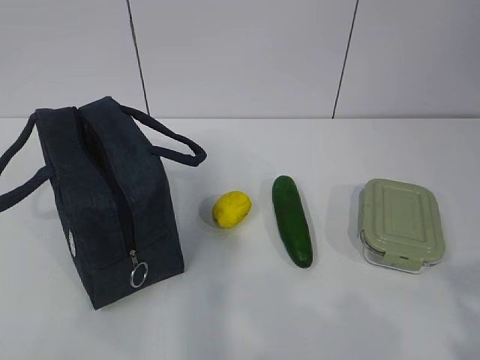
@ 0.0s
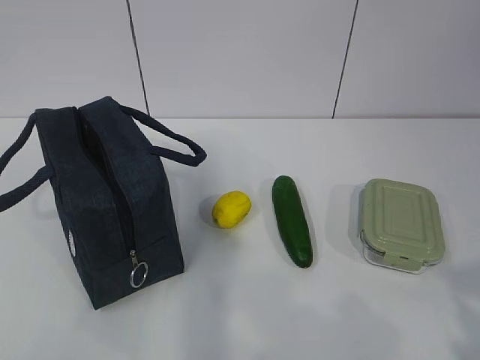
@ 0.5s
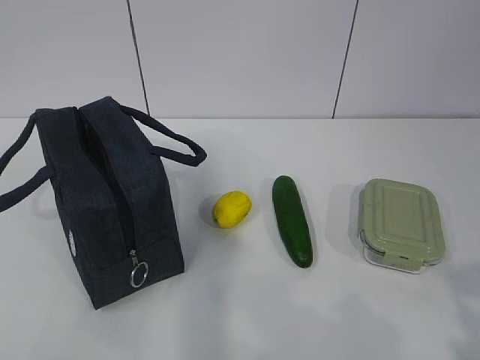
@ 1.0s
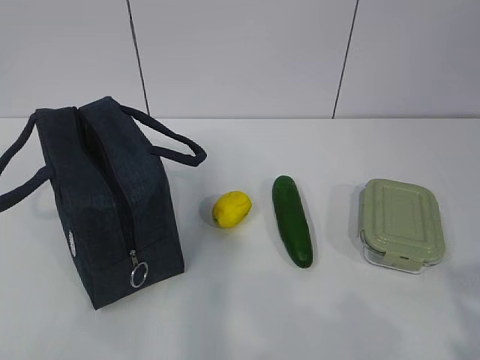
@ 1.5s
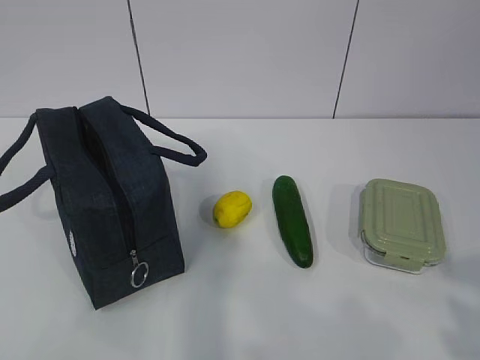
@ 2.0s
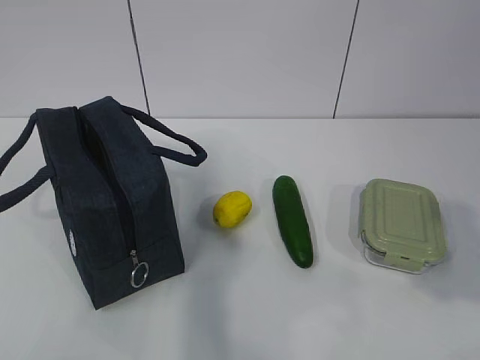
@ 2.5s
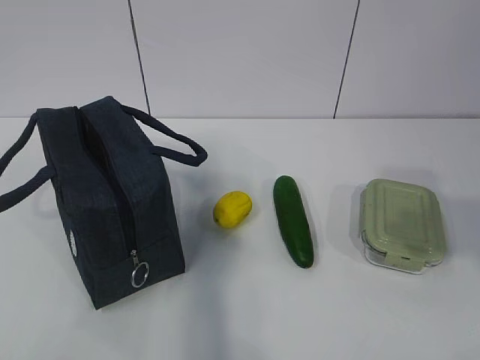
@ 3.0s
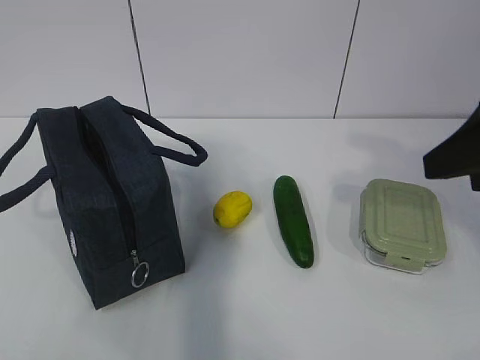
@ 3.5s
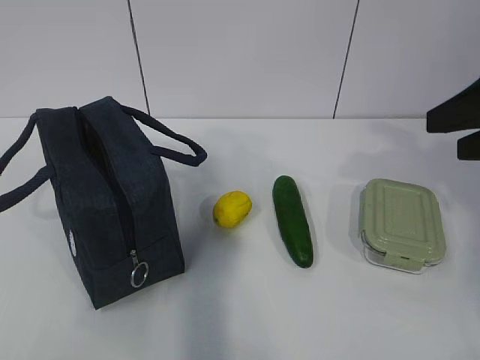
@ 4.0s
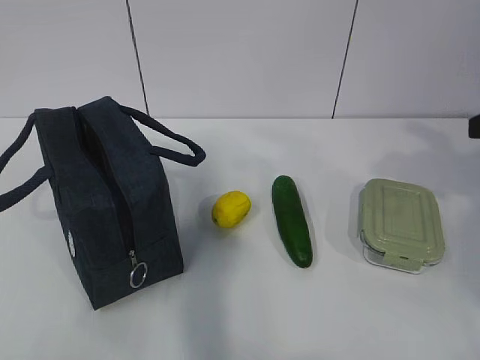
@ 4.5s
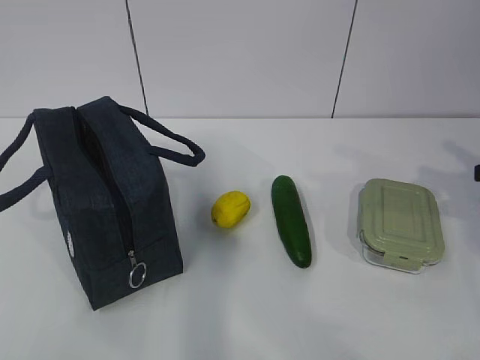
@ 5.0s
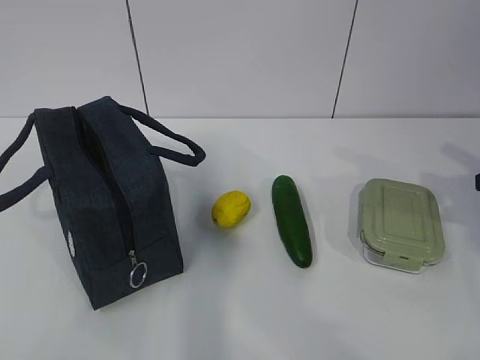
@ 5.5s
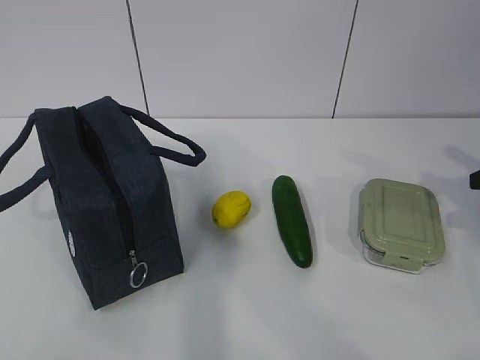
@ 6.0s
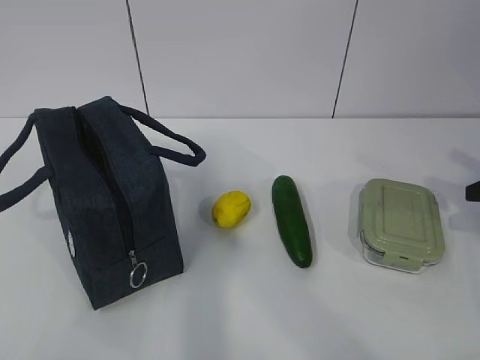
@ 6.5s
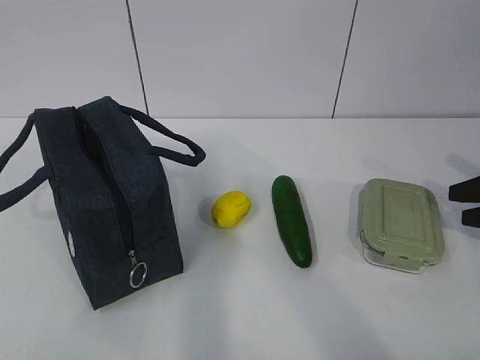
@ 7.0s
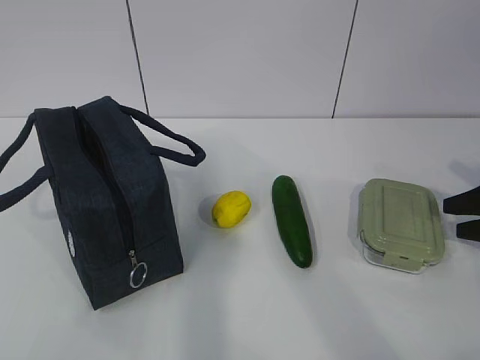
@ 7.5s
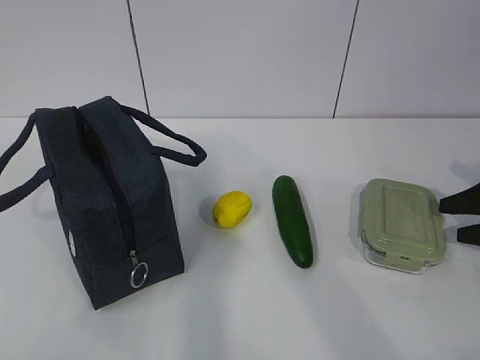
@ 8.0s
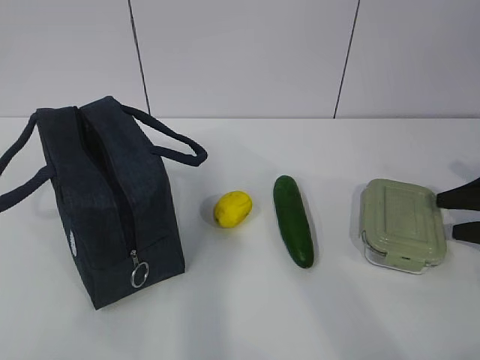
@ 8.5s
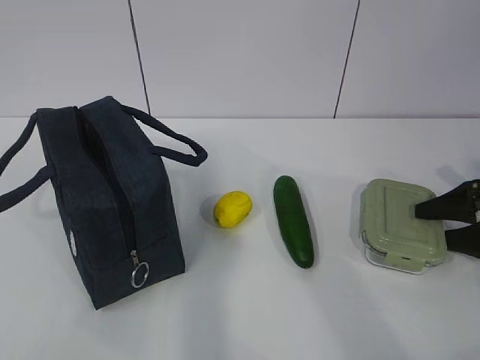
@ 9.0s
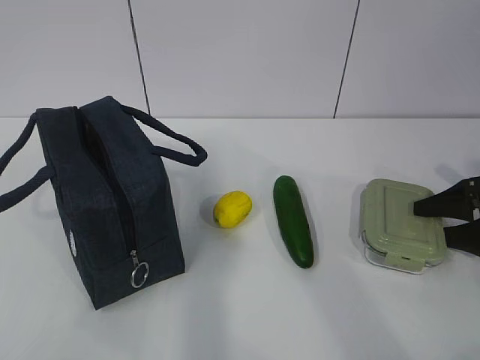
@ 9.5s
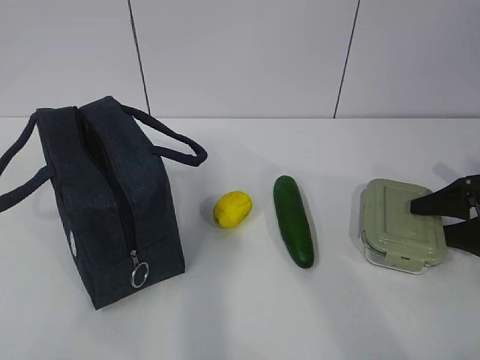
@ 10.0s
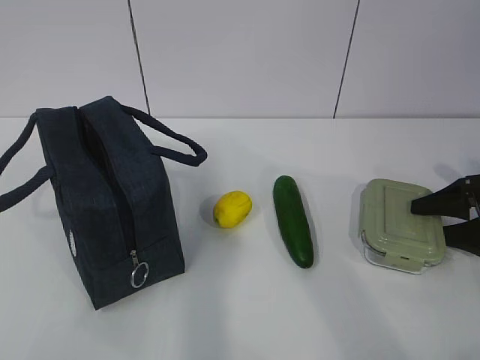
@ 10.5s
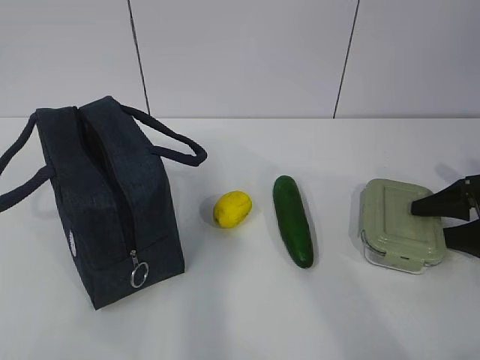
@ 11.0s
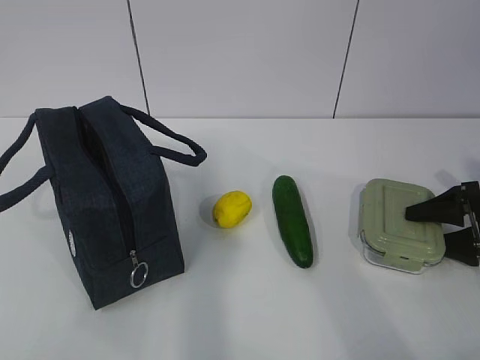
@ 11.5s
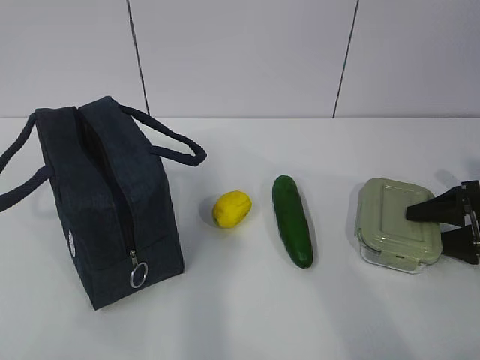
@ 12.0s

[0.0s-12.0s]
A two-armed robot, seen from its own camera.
2.0s to 4.0s: The right gripper moves forward, some 25 cm.
4.0s to 6.0s: The right gripper goes approximately 15 cm to the right and downward.
6.0s to 8.0s: The right gripper moves downward, approximately 10 cm.
8.0s to 12.0s: The grippers move only a little.

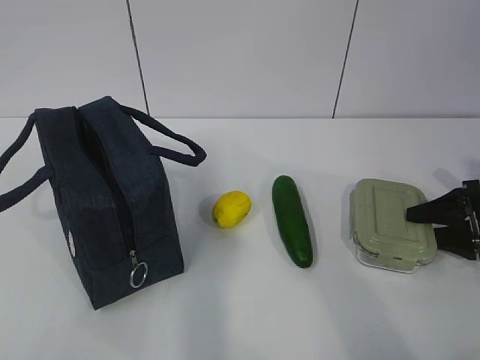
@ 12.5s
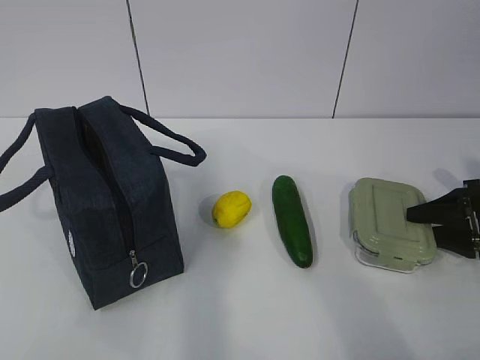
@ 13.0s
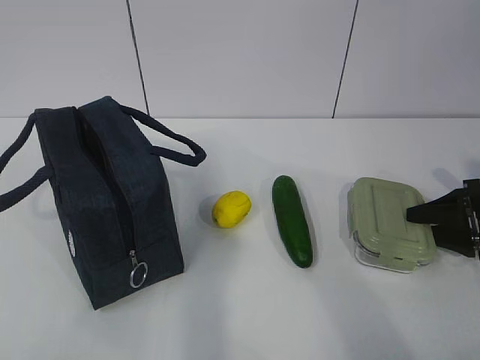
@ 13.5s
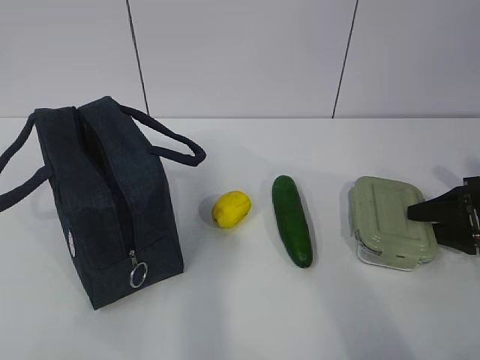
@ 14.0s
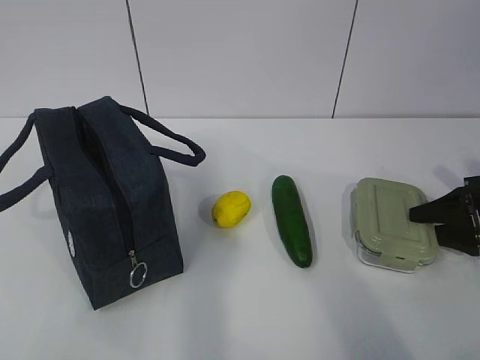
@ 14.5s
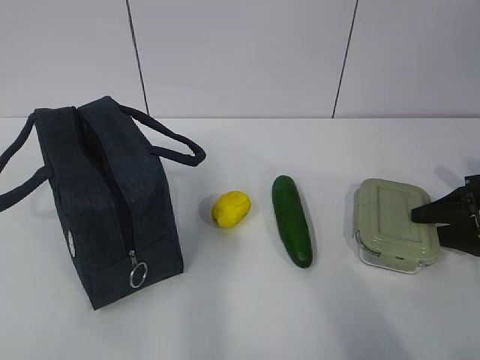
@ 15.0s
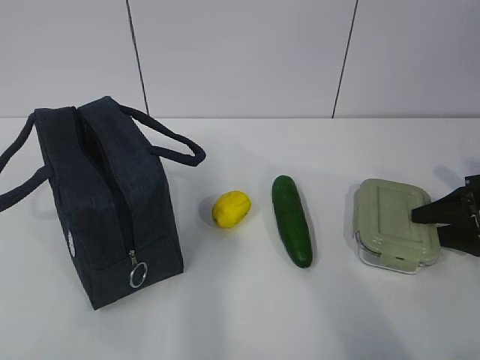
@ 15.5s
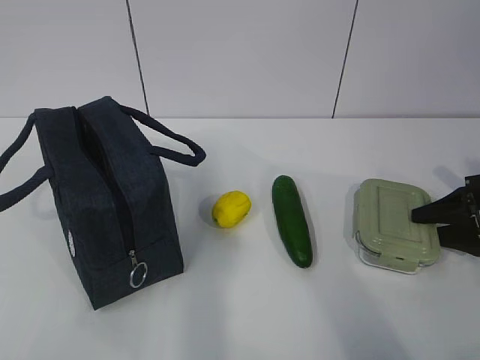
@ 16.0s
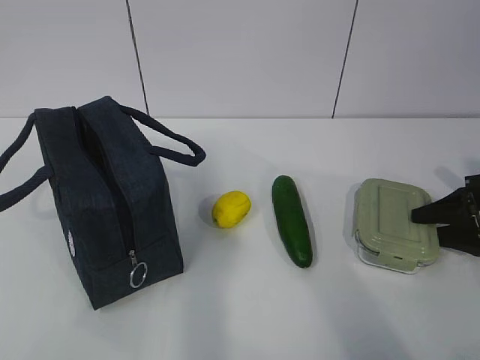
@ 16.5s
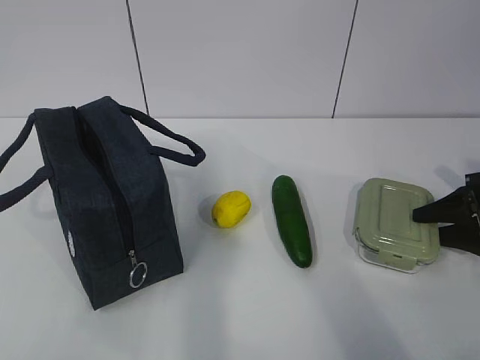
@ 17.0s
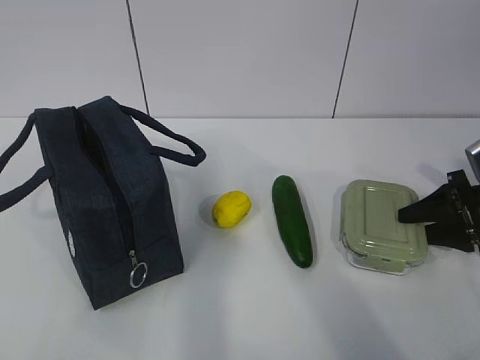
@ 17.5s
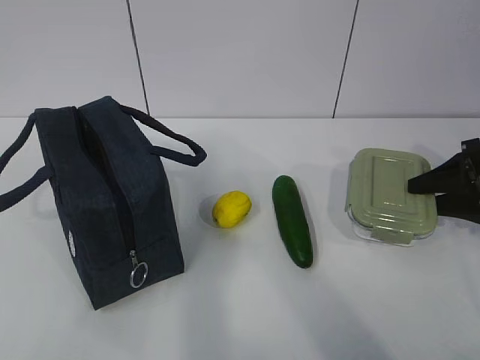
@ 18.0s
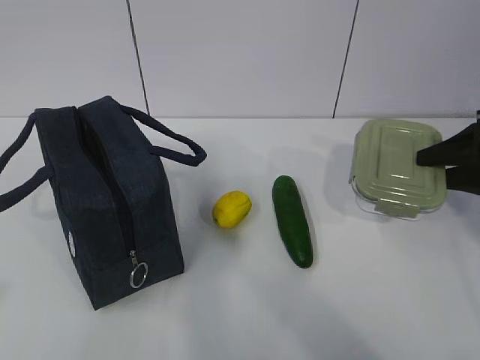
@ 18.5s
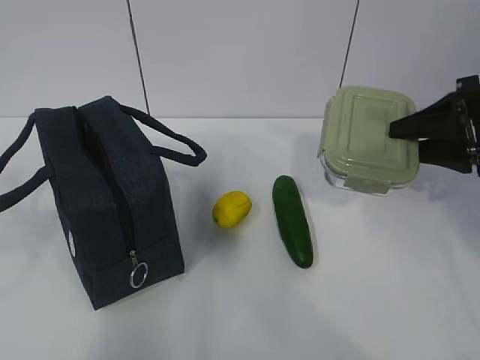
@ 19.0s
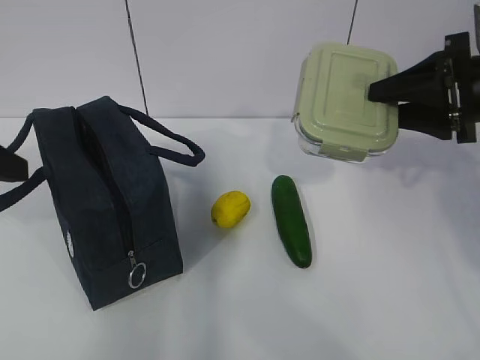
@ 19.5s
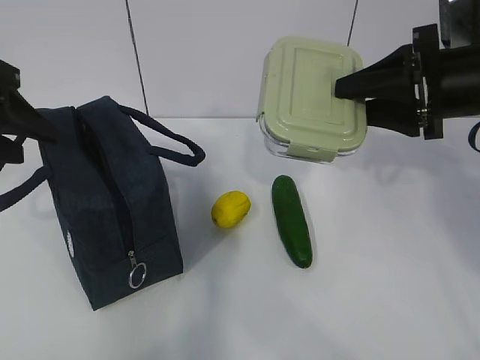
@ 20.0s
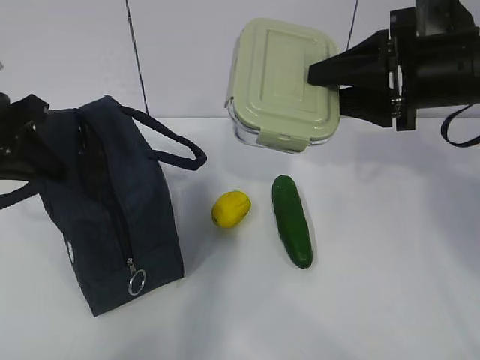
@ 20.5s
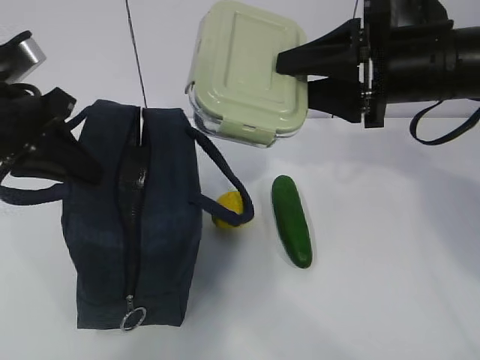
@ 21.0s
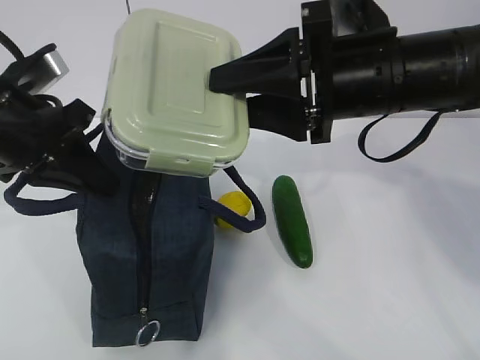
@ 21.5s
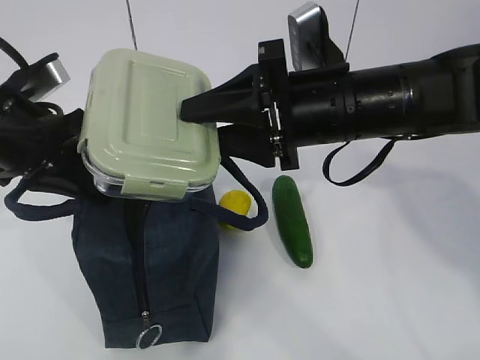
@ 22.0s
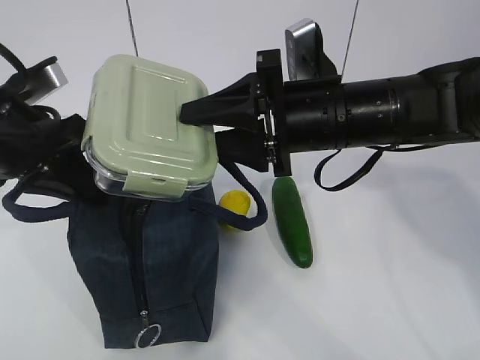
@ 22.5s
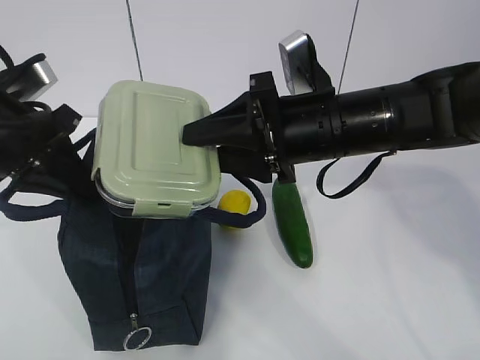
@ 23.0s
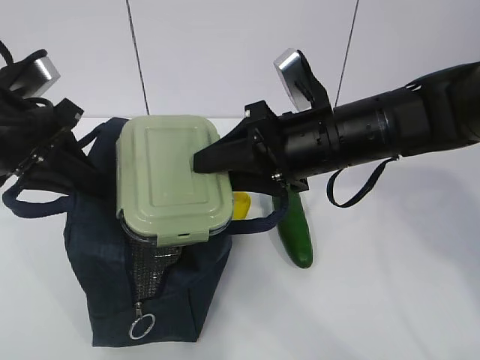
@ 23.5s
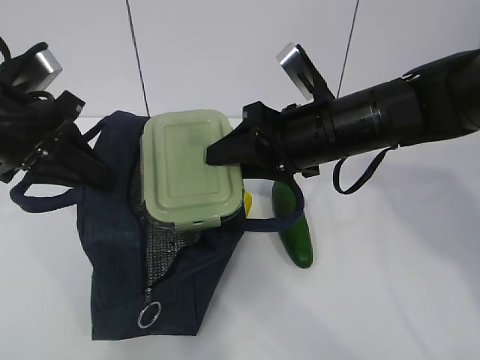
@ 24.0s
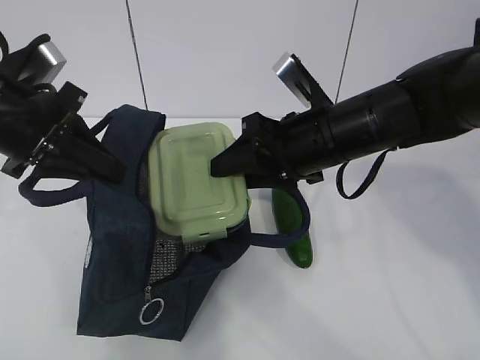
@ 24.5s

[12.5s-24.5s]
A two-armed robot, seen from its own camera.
Step, 18.5s to 23.5s: Place it into the bag with your right hand.
12.5s to 16.5s: The two grippers keep their place.
16.5s to 18.5s: The right gripper goes some 10 cm upward.
18.5s to 20.5s: The left gripper heads forward, covering about 25 cm, and closes; the right gripper is displaced to the left and upward by approximately 15 cm.
20.5s to 22.5s: The right gripper goes some 10 cm to the left.

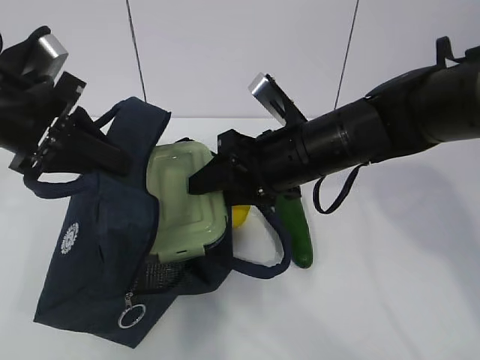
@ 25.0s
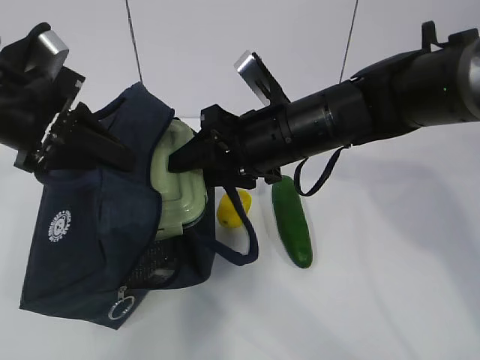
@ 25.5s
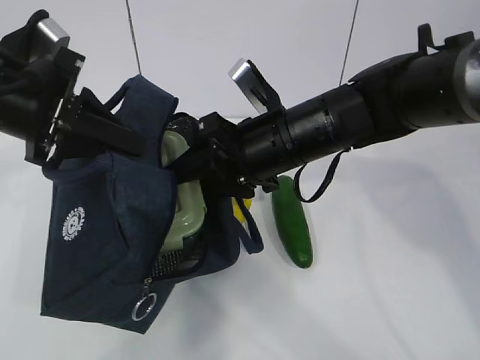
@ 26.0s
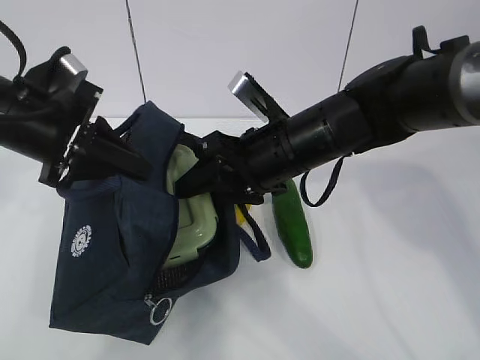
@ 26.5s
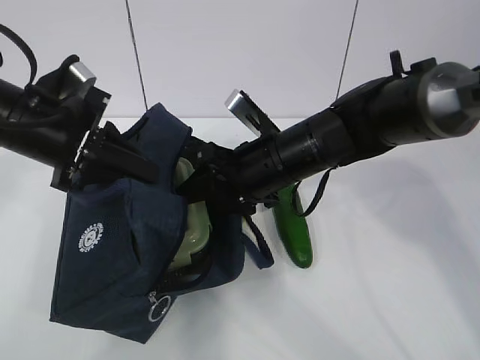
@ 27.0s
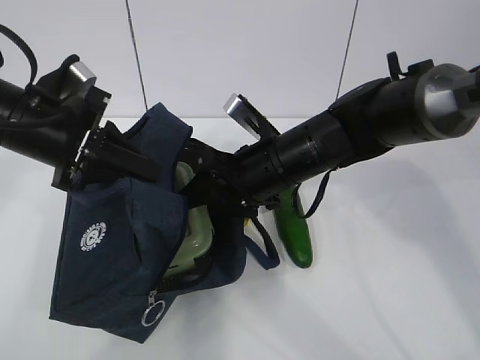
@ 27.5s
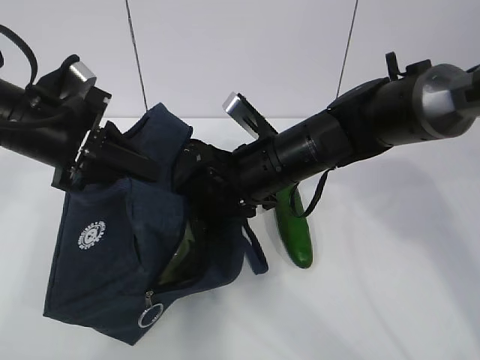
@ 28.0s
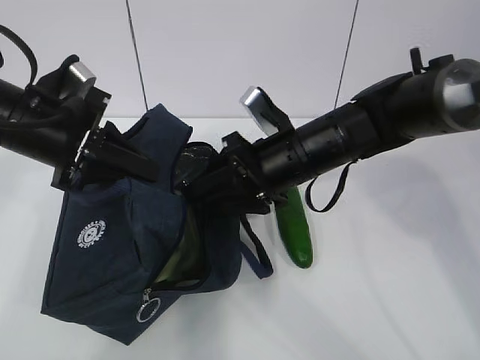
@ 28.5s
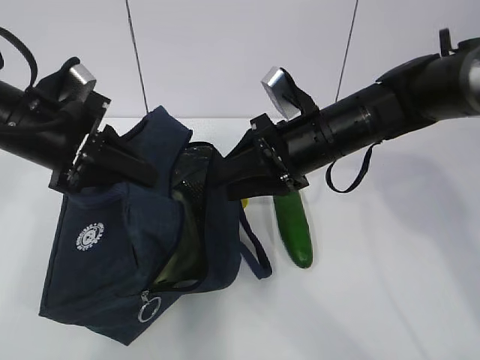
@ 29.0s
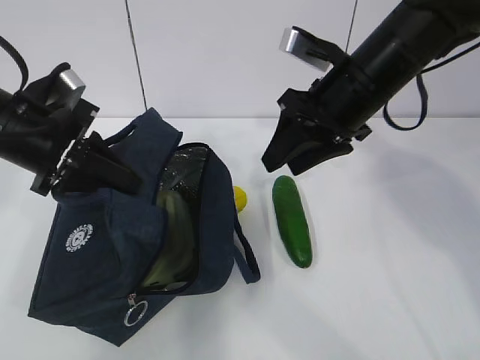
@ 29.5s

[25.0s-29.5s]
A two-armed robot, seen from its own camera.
Step, 25.0s to 28.5s: Grab the cucumber with your right hand.
27.0s to 29.5s: The right gripper goes approximately 10 cm upward and to the right.
